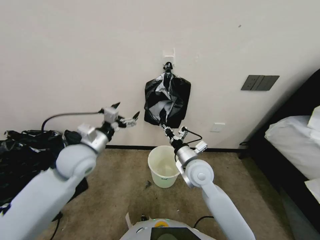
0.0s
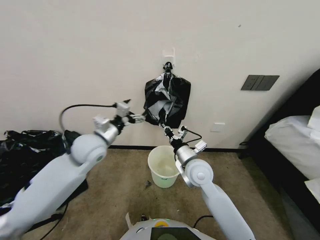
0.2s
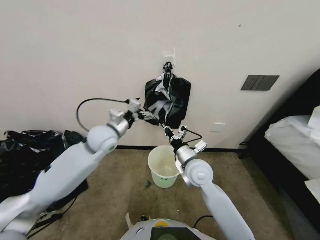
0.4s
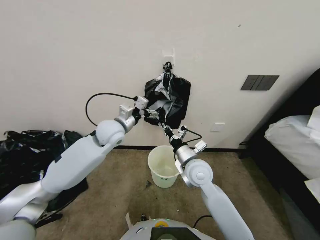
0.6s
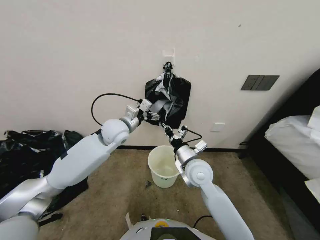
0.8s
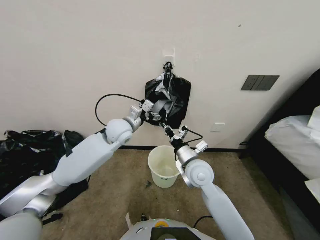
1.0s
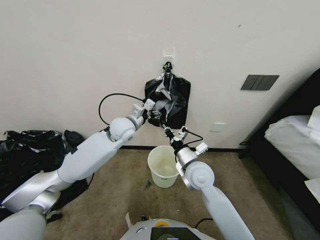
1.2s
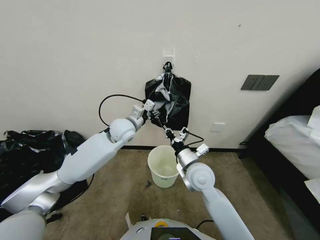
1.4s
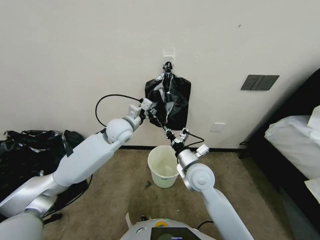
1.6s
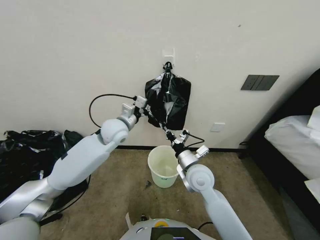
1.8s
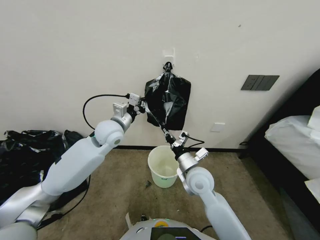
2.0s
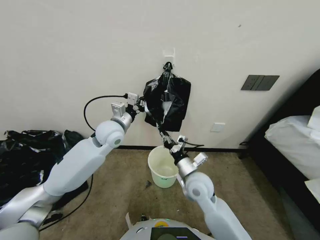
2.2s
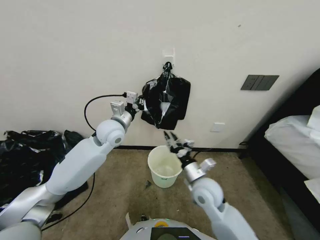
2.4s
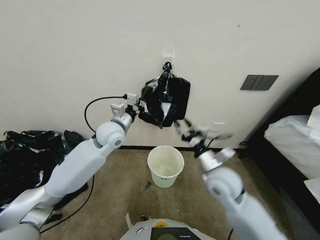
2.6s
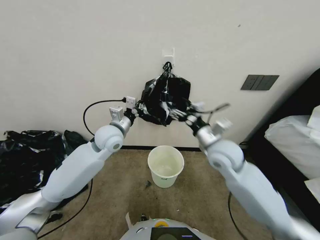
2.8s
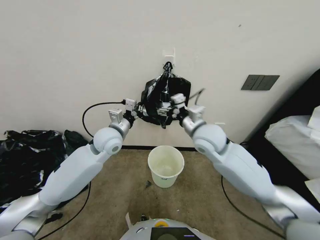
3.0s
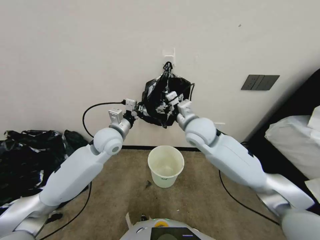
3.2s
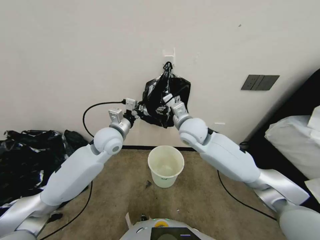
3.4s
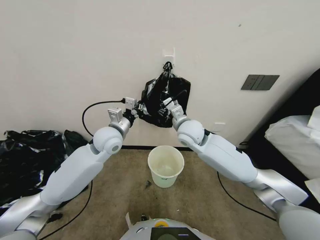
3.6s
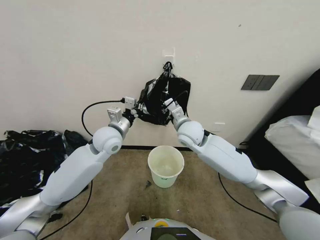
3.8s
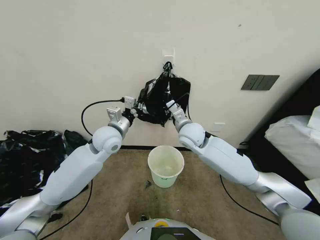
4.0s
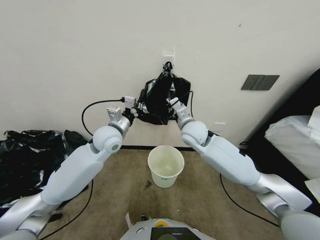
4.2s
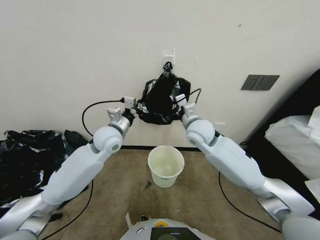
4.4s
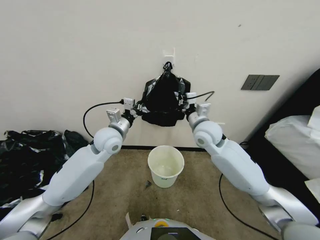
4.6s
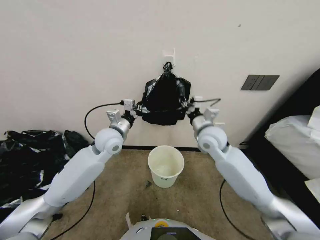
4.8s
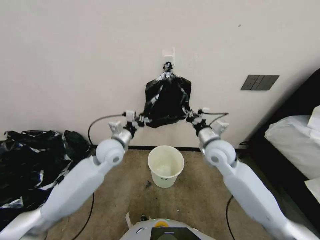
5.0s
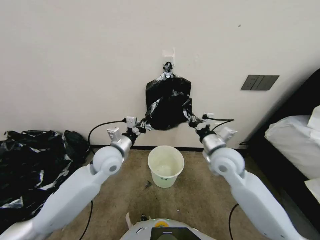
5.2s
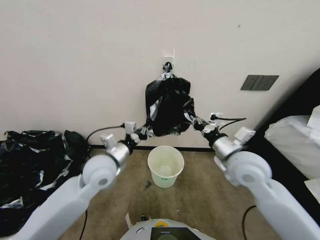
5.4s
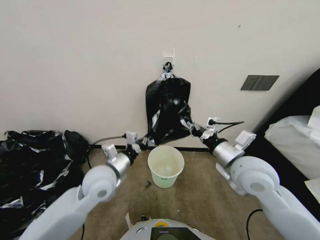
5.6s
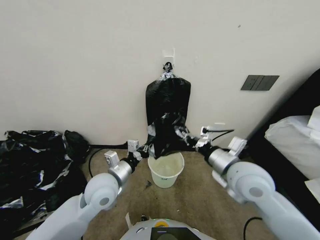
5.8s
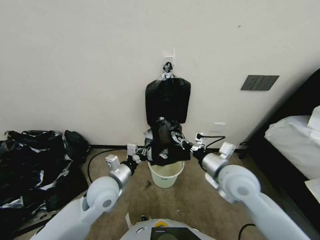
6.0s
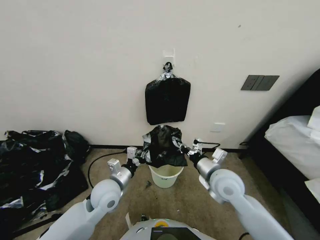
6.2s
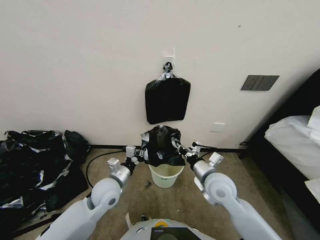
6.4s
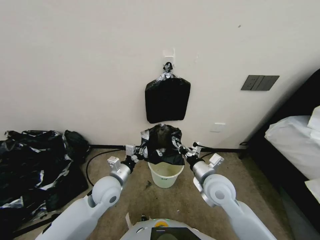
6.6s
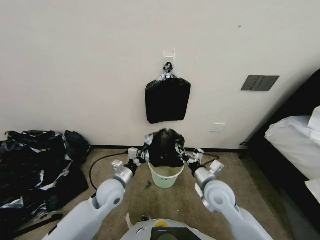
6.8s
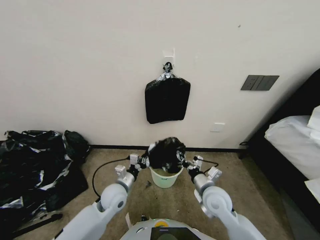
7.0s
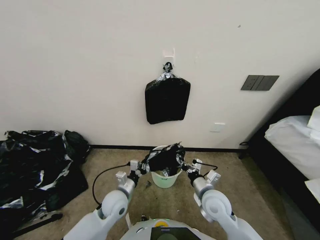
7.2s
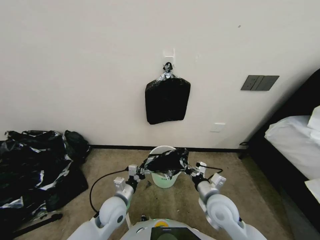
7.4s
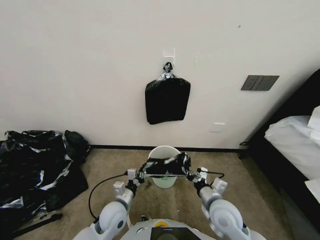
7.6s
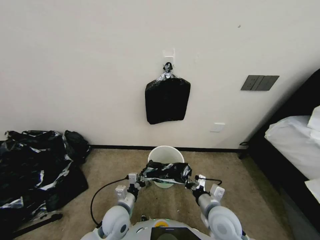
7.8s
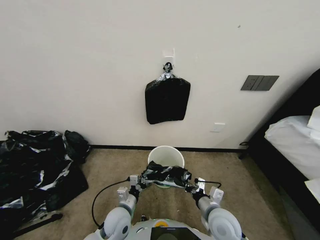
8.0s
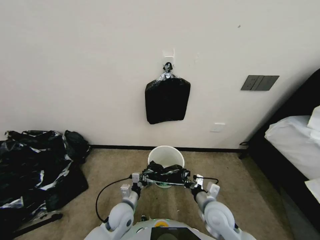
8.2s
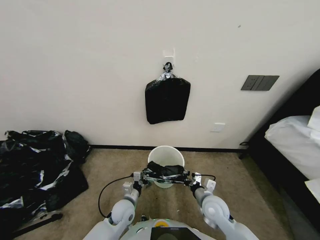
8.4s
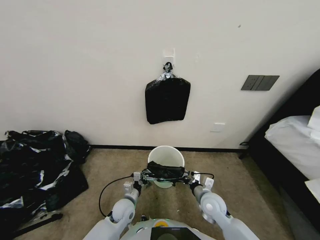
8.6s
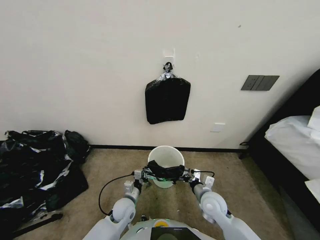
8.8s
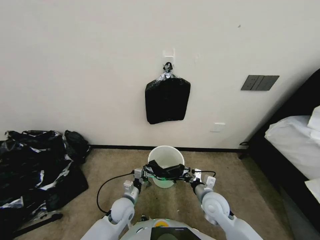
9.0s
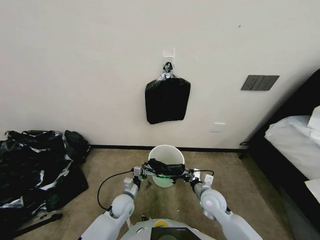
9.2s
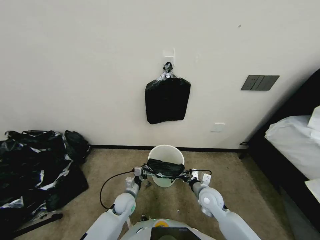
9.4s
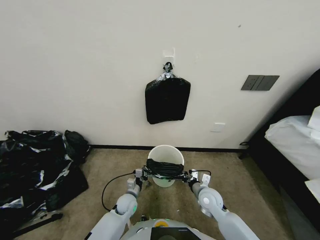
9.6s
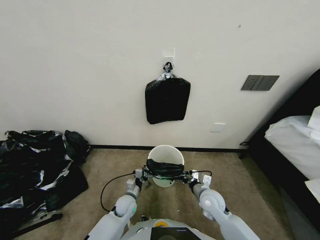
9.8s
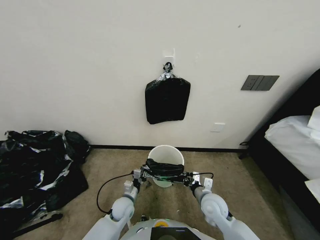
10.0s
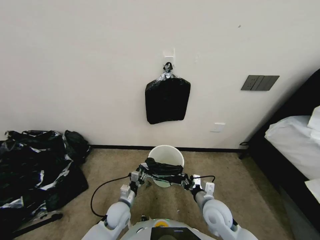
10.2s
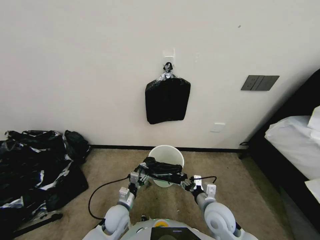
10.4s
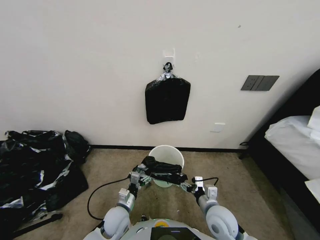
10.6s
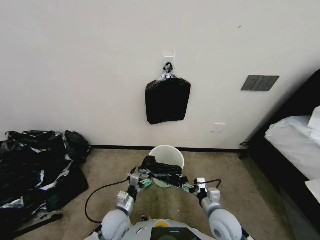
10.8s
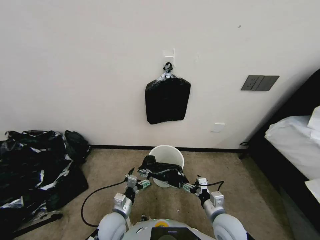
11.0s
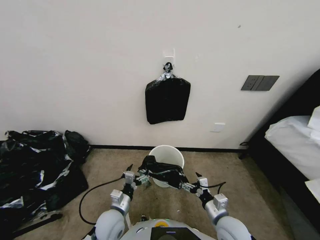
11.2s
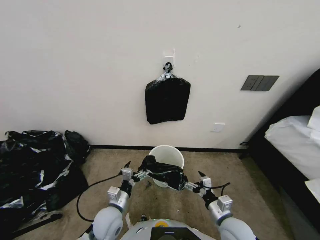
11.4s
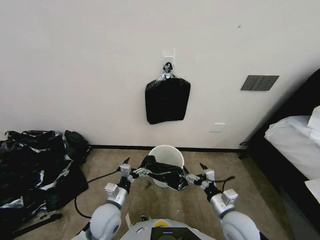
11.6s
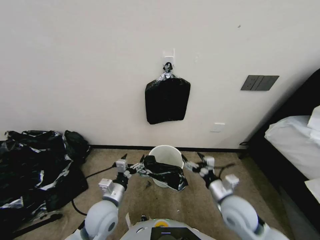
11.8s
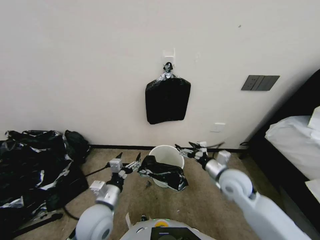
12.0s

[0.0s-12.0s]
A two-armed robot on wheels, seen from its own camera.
Task of the whole recording: Place a trash bag onto the trash bin.
0.0s to 1.6s: The left gripper heads forward and to the right, covering approximately 20 cm, and closes its fingers.
1.6s to 3.0s: The left gripper moves roughly 5 cm, and closes; the right gripper moves upward and forward, roughly 10 cm, and opens its fingers.
3.0s to 4.4s: The right gripper is displaced forward by about 5 cm, and closes its fingers.
4.4s to 6.0s: The right gripper moves backward and to the right, some 20 cm, while the left gripper moves backward and downward, some 15 cm.
6.0s to 7.6s: Both grippers move downward, about 15 cm.
7.6s to 9.0s: Both grippers move downward, roughly 5 cm.
9.0s to 10.4s: The left gripper opens its fingers, while the right gripper opens its fingers.
10.4s to 12.0s: The right gripper goes approximately 5 cm upward, and opens its fingers; the left gripper heads upward, covering some 15 cm, and opens.

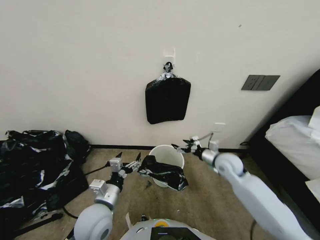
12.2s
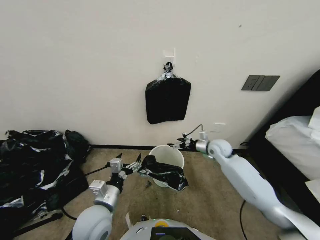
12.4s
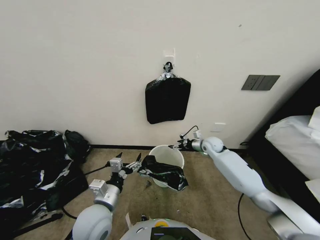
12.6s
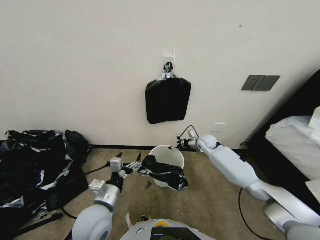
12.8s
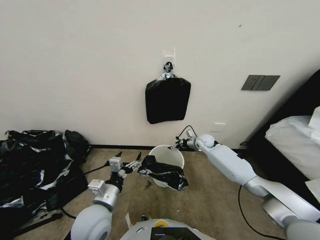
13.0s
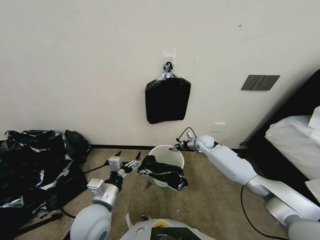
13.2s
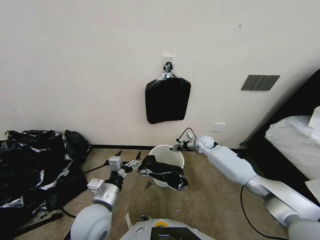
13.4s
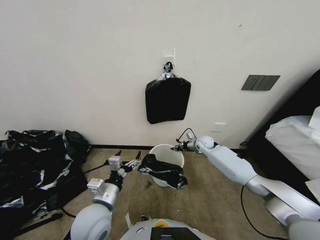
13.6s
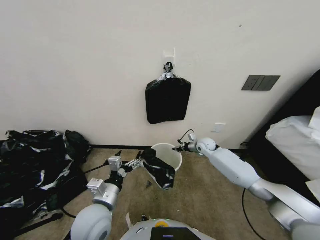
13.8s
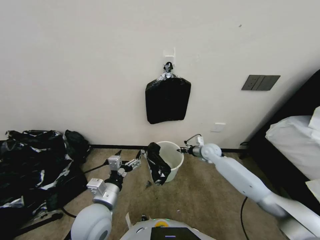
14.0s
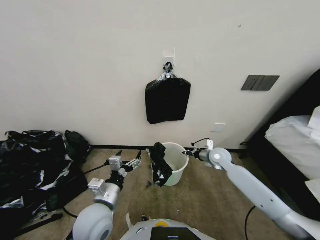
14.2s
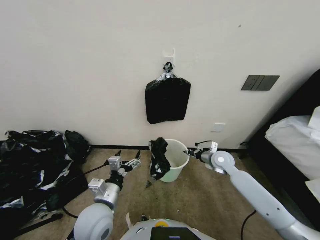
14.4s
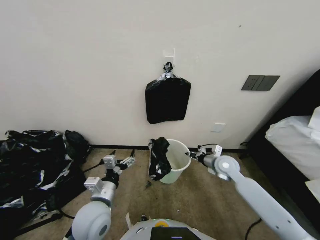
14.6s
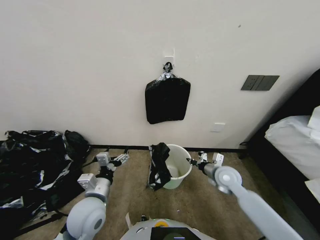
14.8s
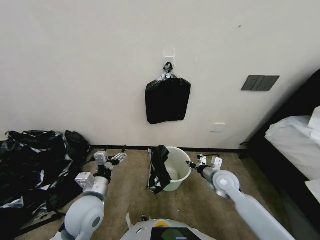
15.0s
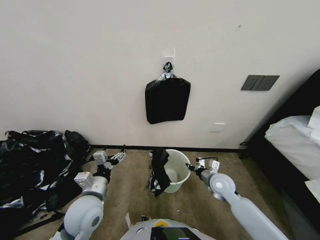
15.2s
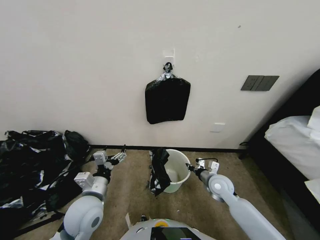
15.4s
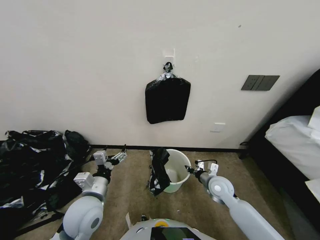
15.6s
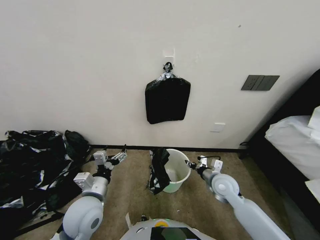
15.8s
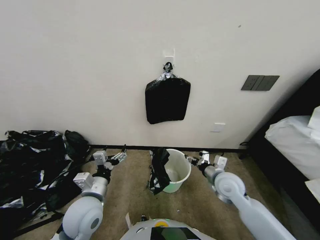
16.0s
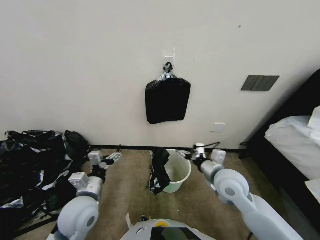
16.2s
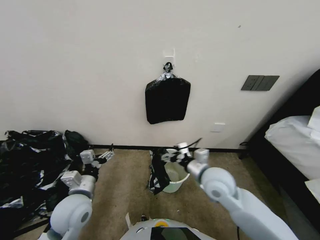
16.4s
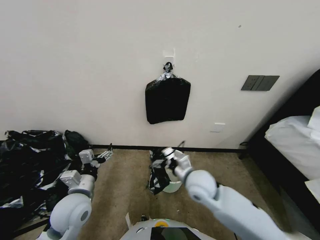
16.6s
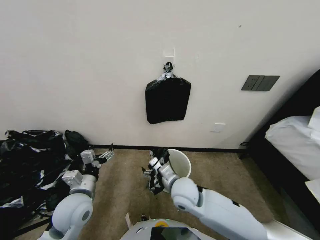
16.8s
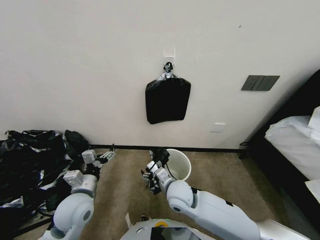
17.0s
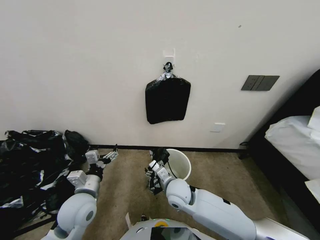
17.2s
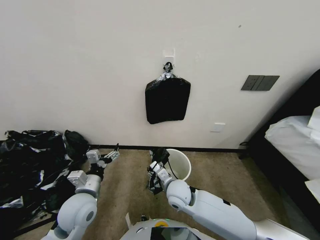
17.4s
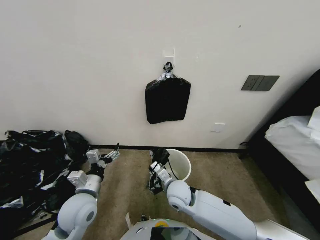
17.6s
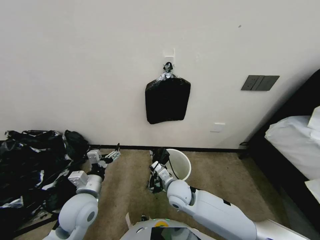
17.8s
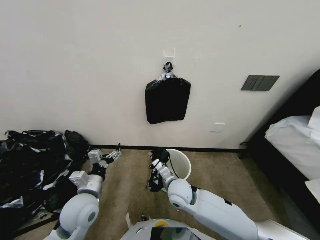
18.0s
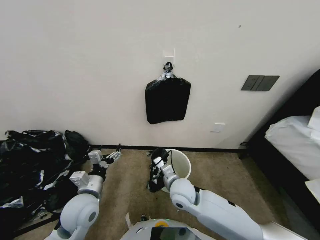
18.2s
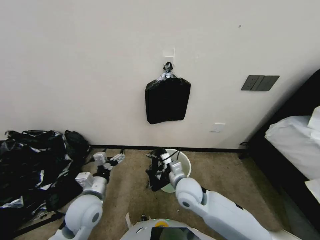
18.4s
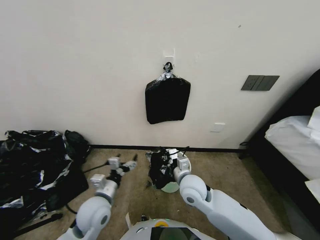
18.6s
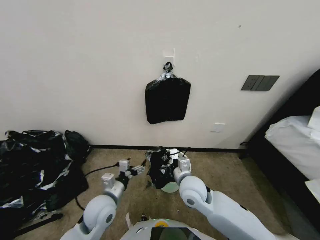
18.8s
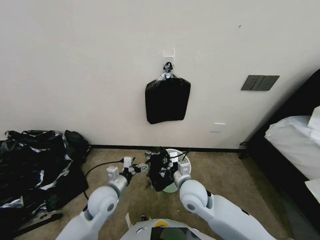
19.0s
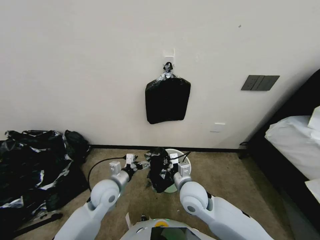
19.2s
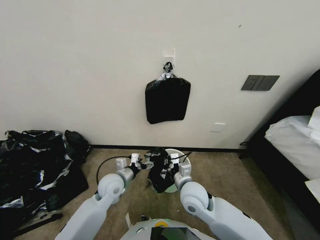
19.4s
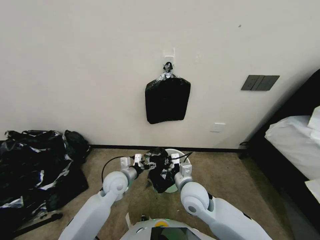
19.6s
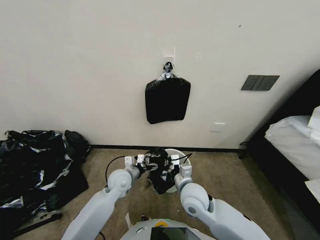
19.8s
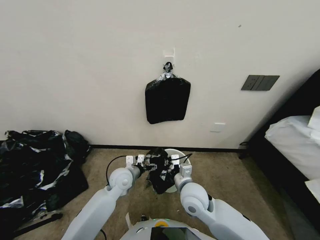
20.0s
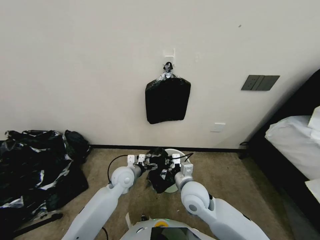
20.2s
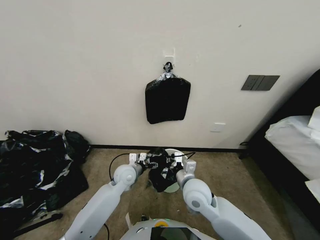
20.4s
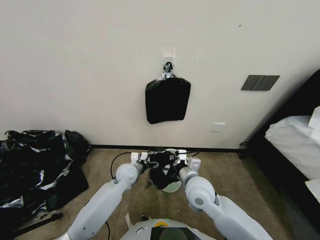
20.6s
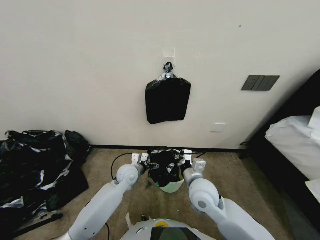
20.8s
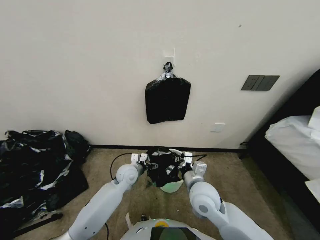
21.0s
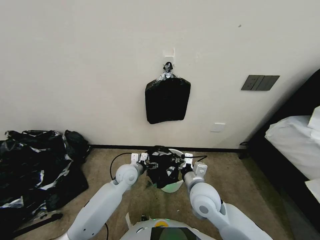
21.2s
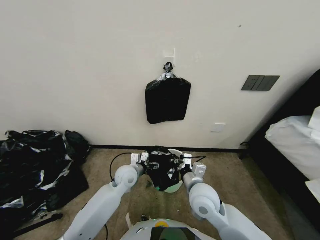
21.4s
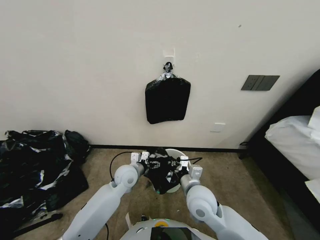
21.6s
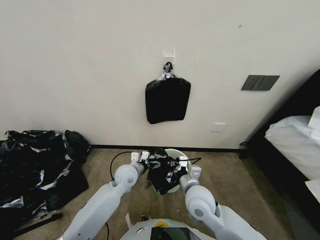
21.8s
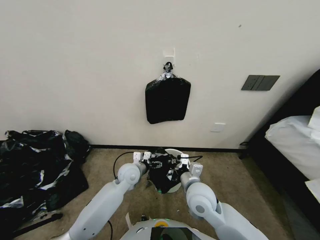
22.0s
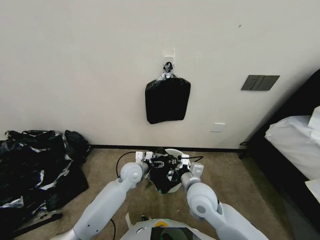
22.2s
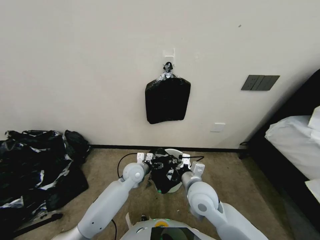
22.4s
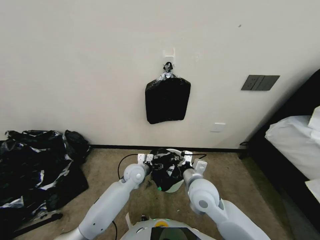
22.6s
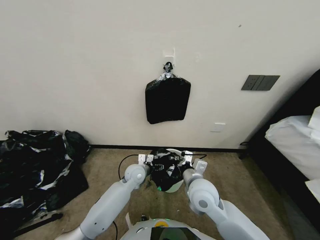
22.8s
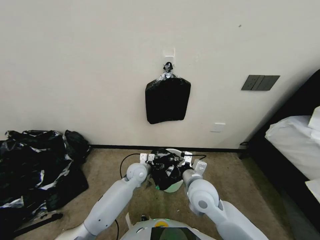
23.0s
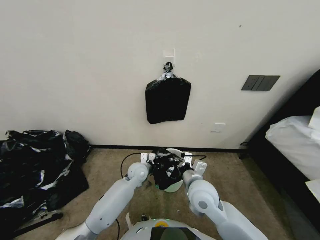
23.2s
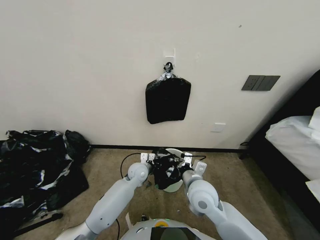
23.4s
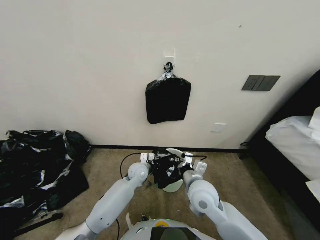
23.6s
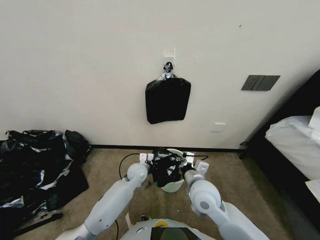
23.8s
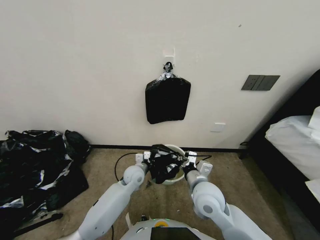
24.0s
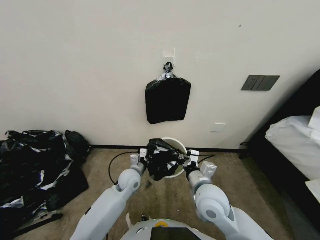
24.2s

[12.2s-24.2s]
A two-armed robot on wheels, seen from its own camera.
Task of the whole recording: Place a trash bag onto the trash bin.
12.2s to 13.8s: The right gripper heads forward, covering approximately 20 cm, and closes its fingers.
13.8s to 15.2s: The right gripper moves backward, about 20 cm.
15.2s to 16.6s: The right gripper moves to the left and upward, some 15 cm, and opens up.
16.6s to 18.2s: The right gripper heads to the left and downward, covering roughly 10 cm, and closes up.
18.2s to 19.8s: The right gripper ends up roughly 5 cm from where it was; the left gripper is displaced forward, to the right and downward by some 15 cm.
19.8s to 21.2s: The left gripper moves approximately 5 cm.
21.2s to 22.6s: The grippers stay close to where they were, moving slightly.
22.6s to 24.2s: The left gripper closes.
